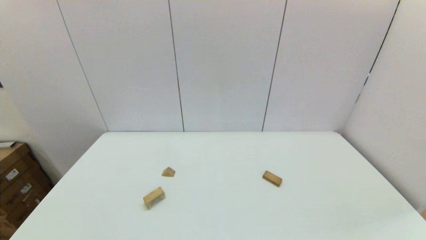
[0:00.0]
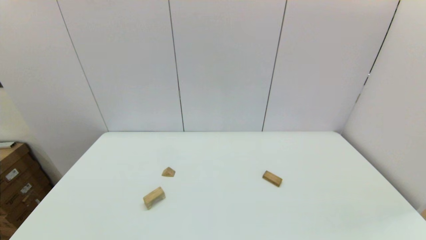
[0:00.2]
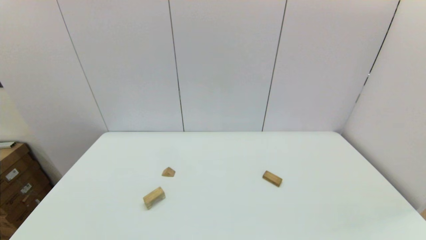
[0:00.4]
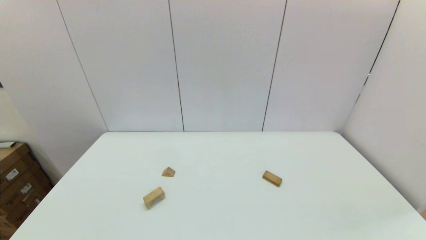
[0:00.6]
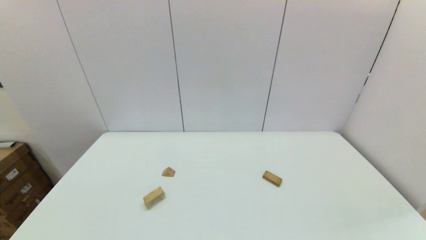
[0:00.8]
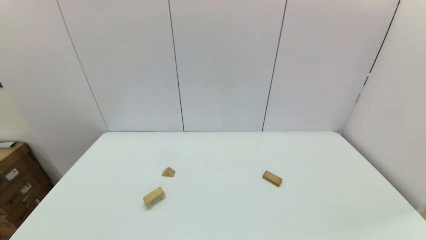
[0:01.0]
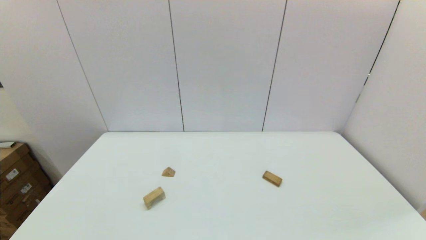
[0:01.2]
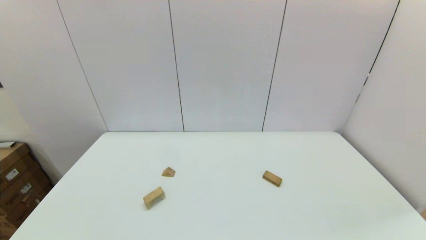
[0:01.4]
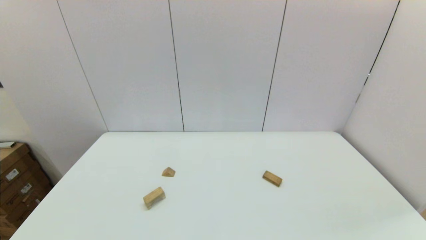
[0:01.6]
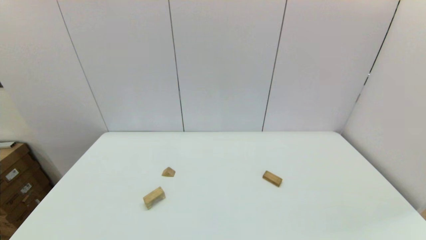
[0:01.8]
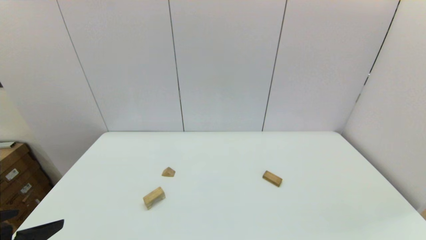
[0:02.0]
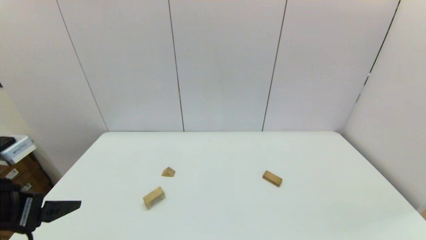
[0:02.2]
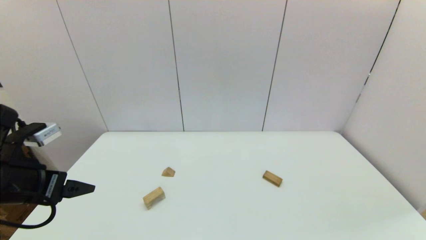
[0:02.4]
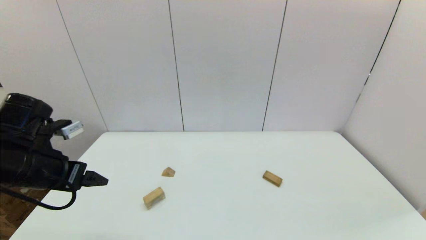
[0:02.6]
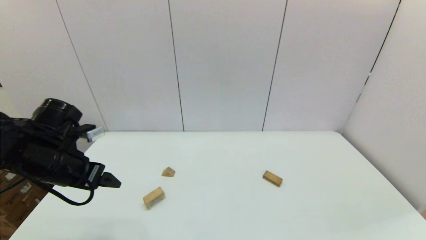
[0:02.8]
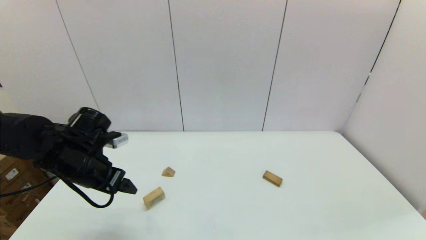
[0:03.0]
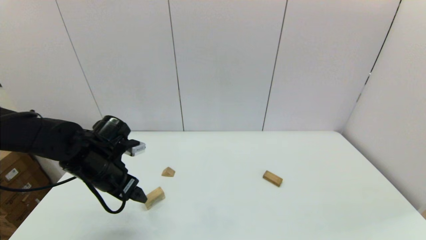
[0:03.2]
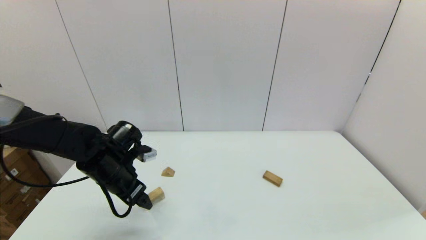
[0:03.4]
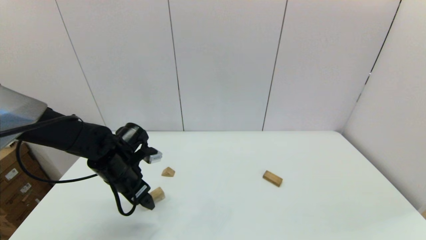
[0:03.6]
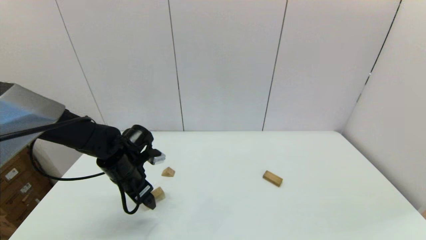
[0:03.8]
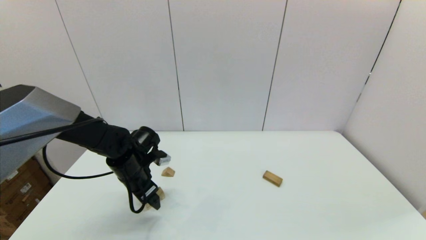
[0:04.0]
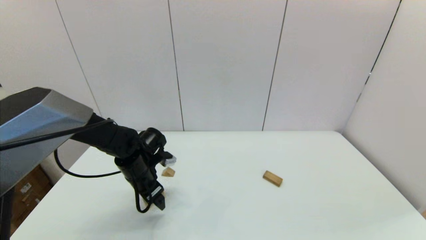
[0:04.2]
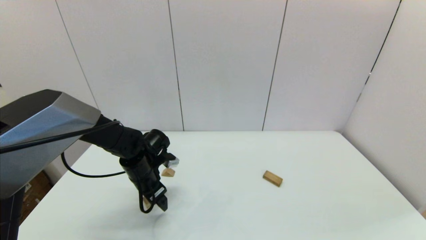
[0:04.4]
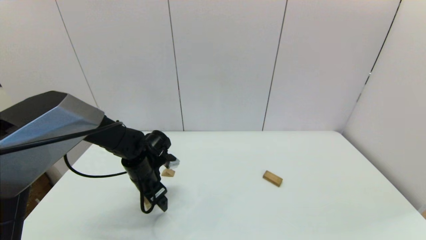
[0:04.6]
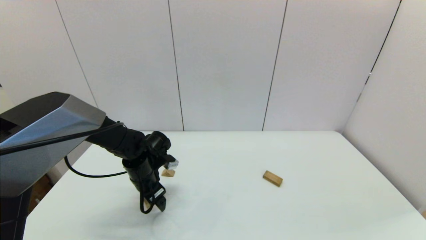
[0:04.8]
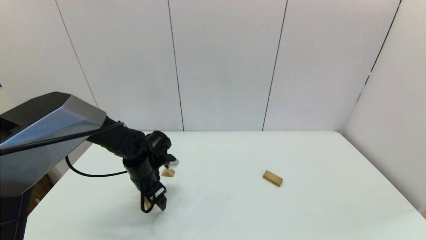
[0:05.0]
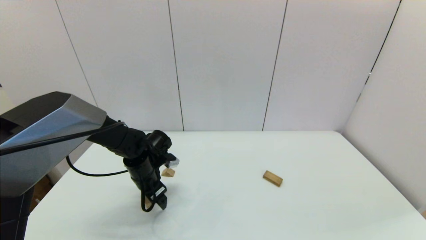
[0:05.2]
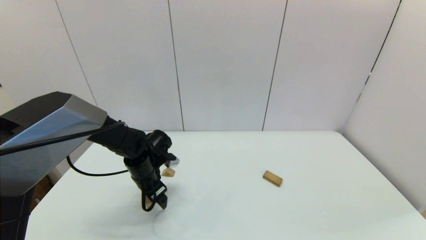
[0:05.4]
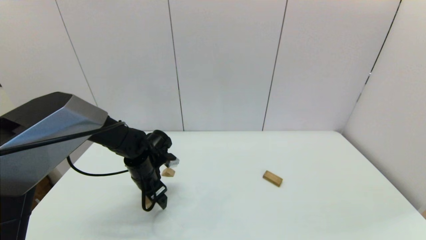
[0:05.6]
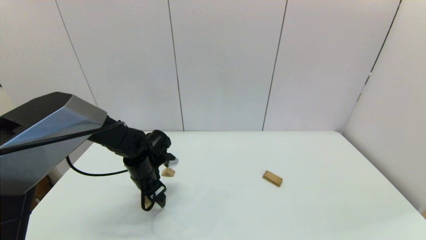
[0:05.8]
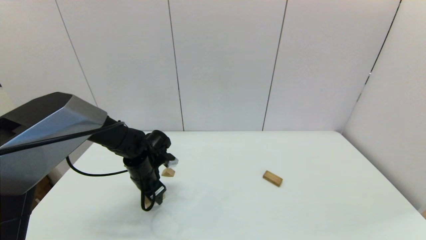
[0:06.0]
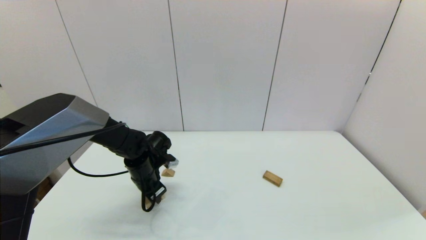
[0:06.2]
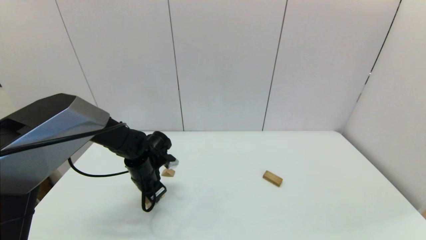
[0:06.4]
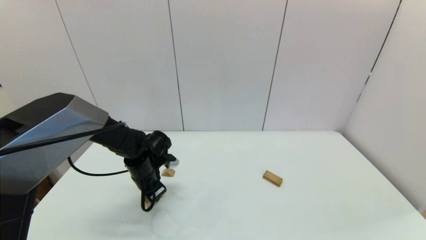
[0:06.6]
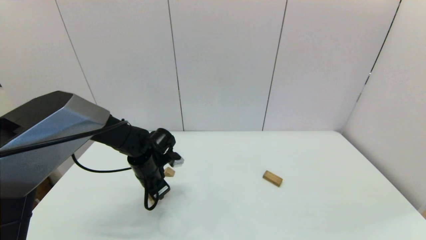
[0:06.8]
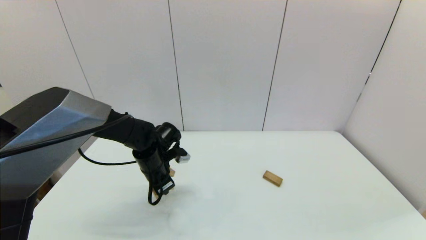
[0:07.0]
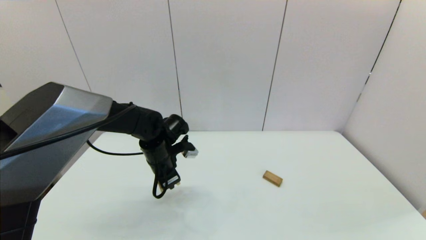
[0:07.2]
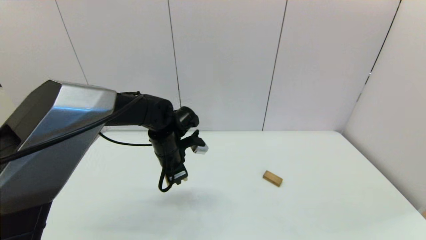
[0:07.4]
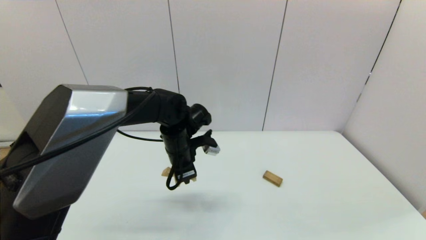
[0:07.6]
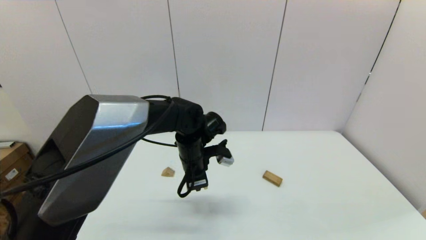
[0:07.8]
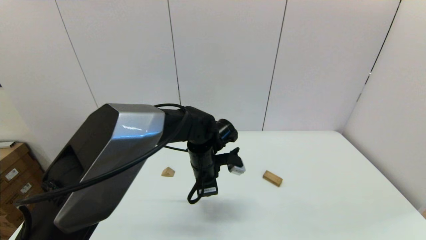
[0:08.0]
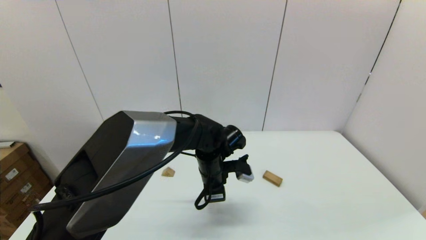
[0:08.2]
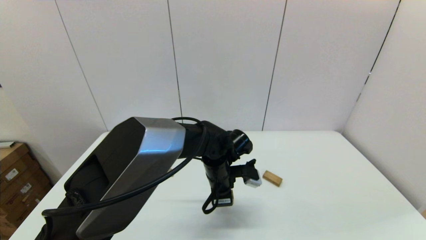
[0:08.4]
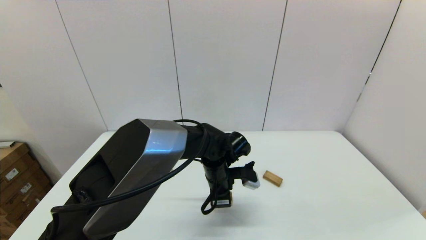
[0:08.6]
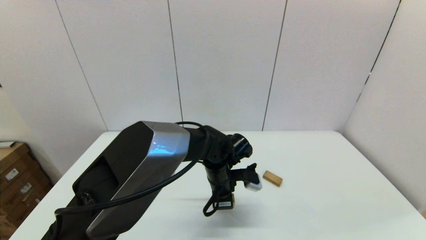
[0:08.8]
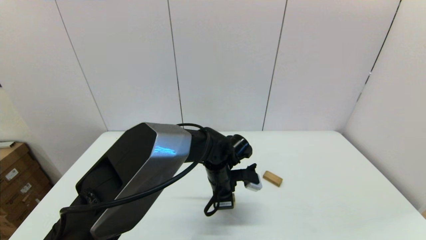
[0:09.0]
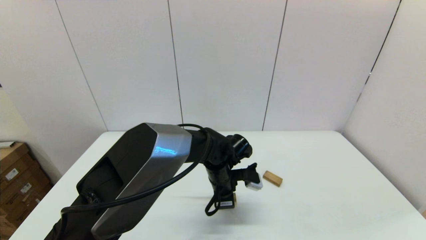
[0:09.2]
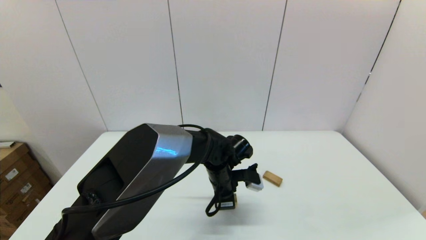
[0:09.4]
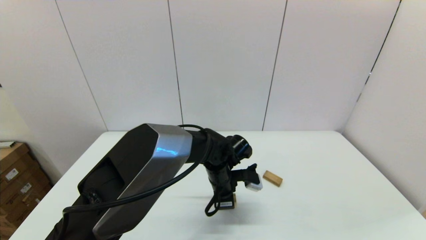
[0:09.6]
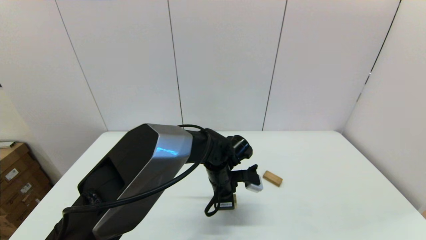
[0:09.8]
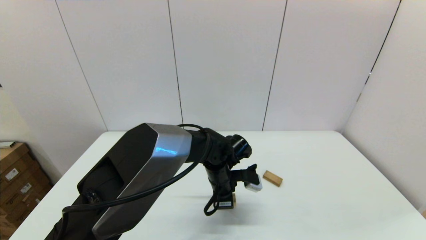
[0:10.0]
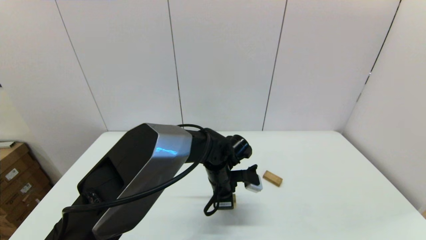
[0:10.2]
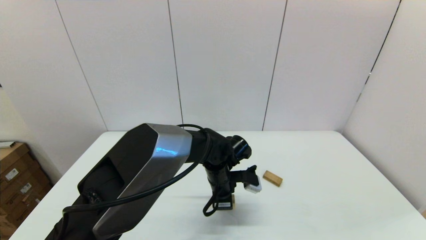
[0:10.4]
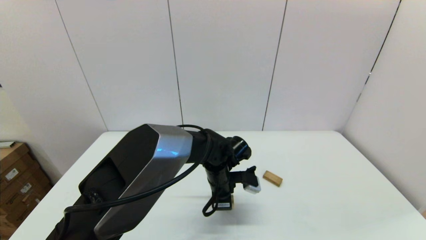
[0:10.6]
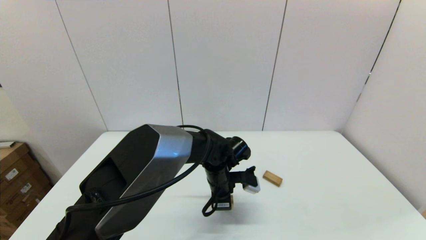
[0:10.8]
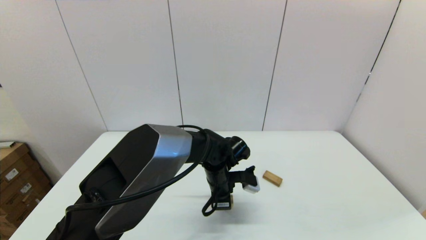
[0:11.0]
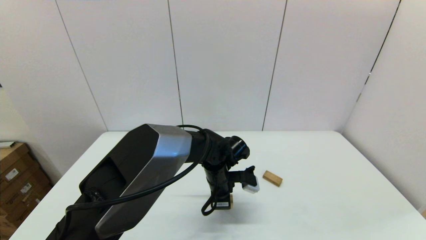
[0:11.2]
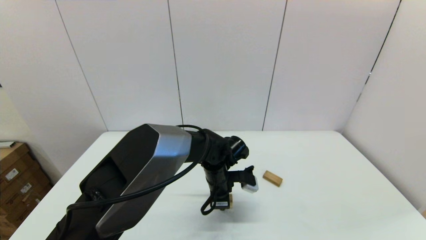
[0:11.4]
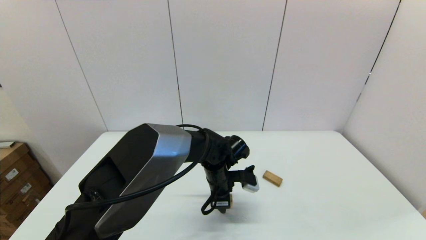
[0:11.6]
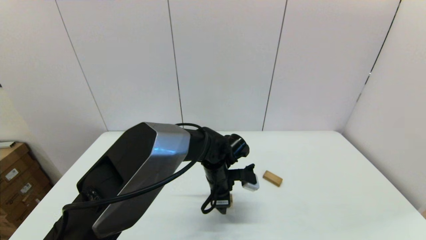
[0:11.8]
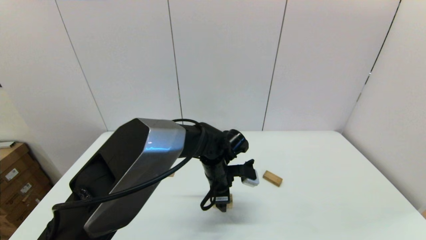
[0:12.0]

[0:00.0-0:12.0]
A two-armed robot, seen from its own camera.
Task of the whole recording: place the arched building blocks in the center of the table, set up the rectangular building blocks, and then set up the triangular building blocks.
Step, 0:02.0 to 0:06.4: Grasp the arch-shaped block with the left gripper.
Step, 0:06.8 to 0:11.8: Place the arch-shaped block in the center of view with the left gripper.
0:01.6 to 0:03.0: The left gripper is displaced forward by roughly 30 cm.
0:03.0 to 0:04.4: The left gripper is displaced downward, to the right and forward by some 15 cm.
0:04.4 to 0:06.0: The left gripper closes up.
0:06.0 to 0:07.6: The left gripper goes approximately 15 cm to the right and upward, and closes up.
0:07.6 to 0:09.0: The left gripper travels to the right and downward by about 10 cm.
0:09.0 to 0:10.4: The two grippers keep their place.
0:10.4 to 0:12.0: The left gripper opens its fingers.

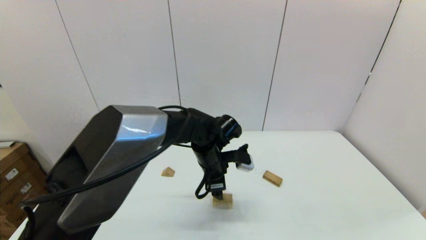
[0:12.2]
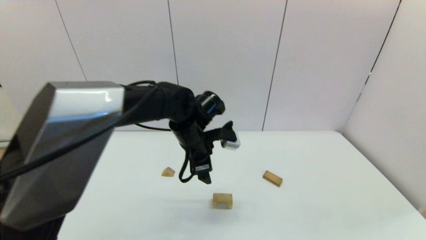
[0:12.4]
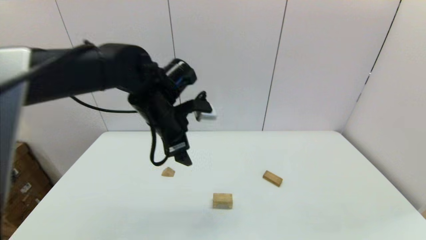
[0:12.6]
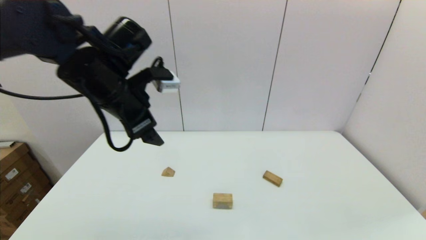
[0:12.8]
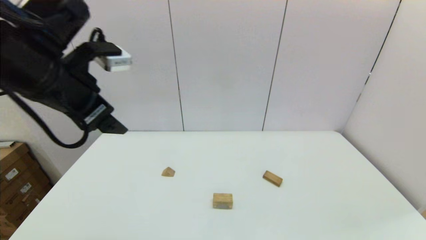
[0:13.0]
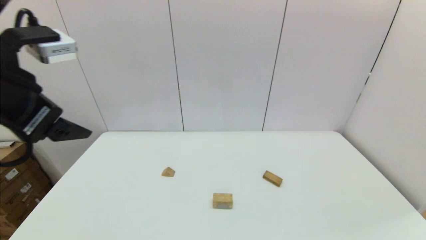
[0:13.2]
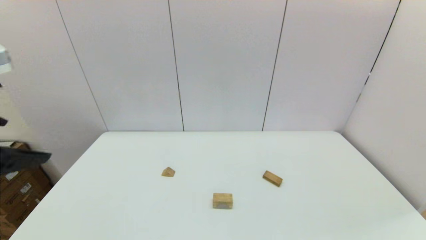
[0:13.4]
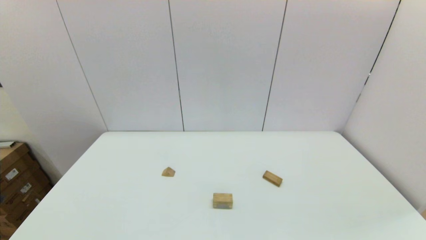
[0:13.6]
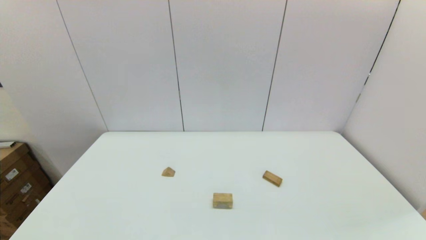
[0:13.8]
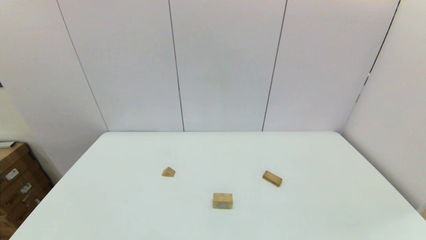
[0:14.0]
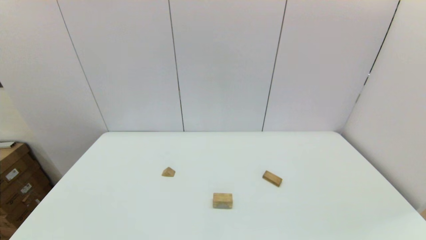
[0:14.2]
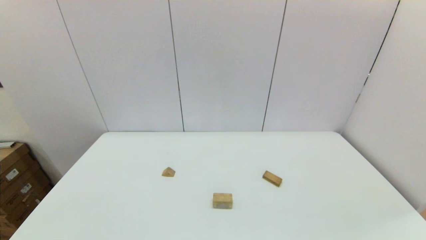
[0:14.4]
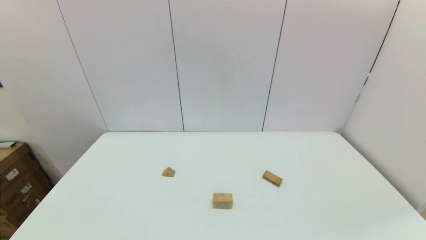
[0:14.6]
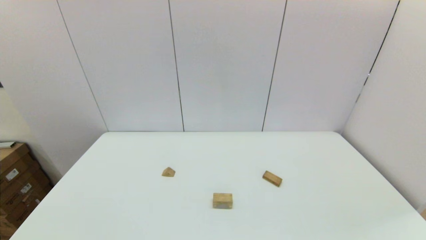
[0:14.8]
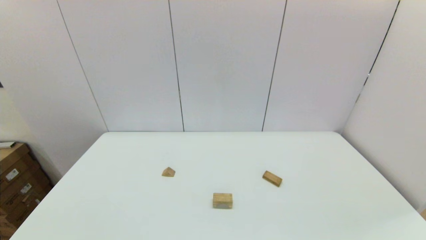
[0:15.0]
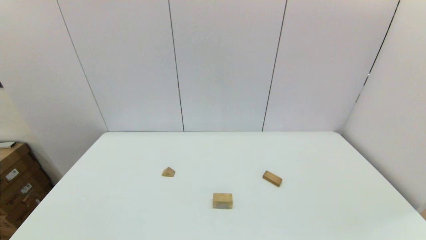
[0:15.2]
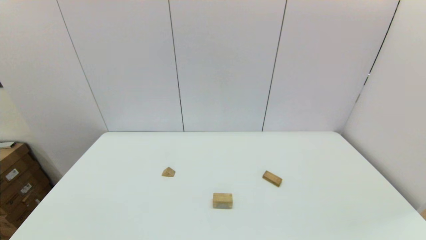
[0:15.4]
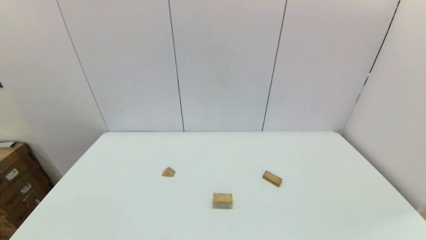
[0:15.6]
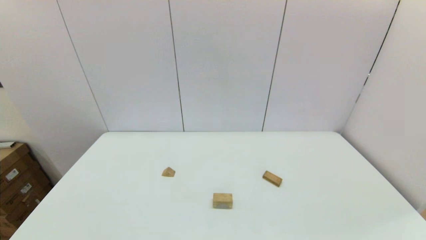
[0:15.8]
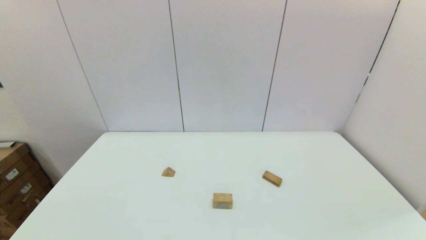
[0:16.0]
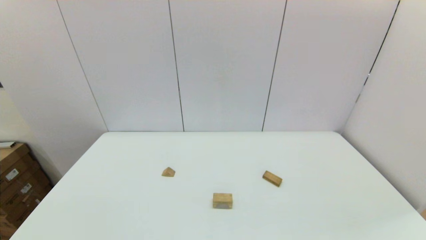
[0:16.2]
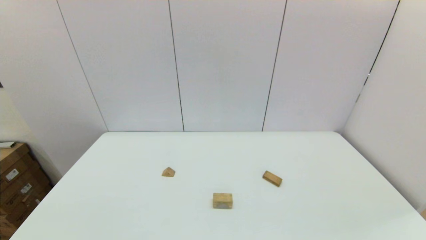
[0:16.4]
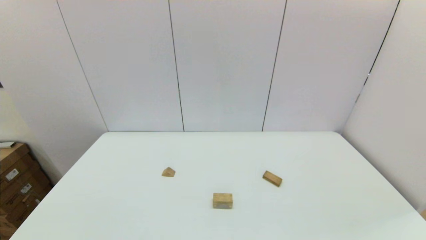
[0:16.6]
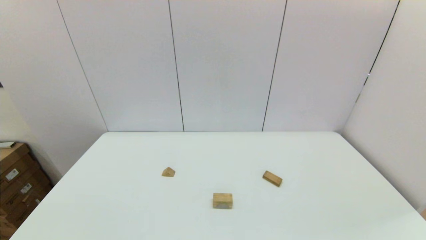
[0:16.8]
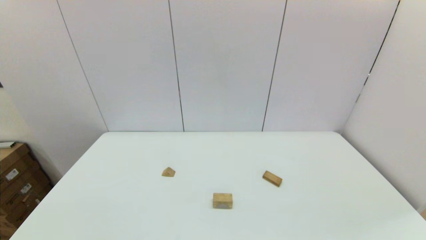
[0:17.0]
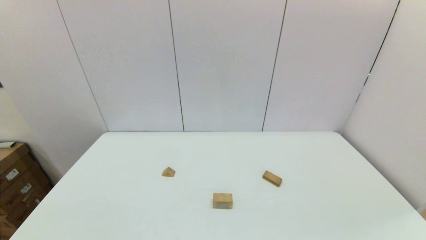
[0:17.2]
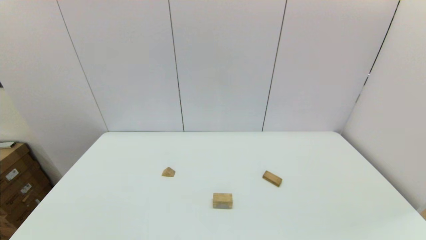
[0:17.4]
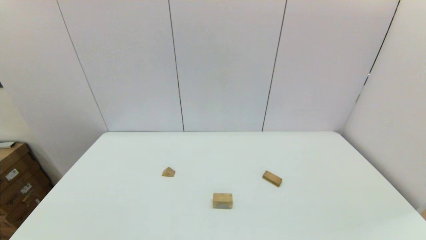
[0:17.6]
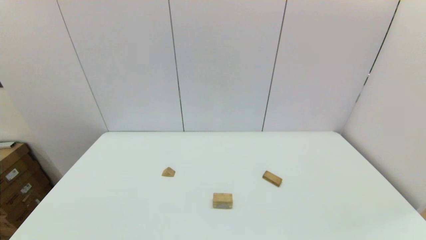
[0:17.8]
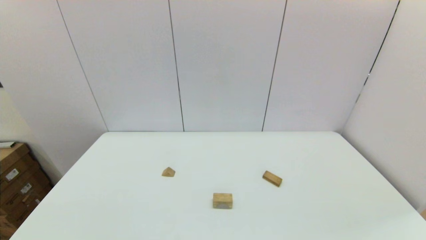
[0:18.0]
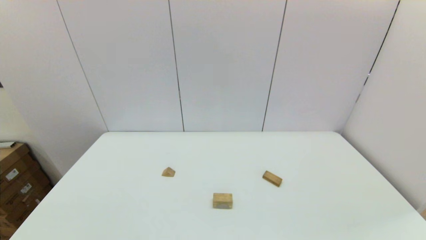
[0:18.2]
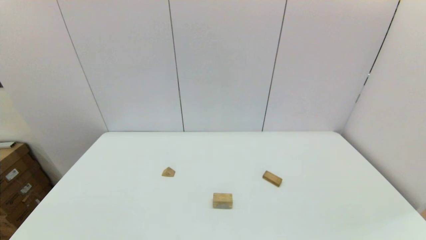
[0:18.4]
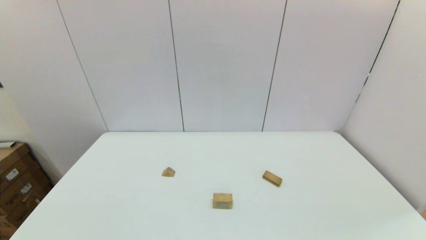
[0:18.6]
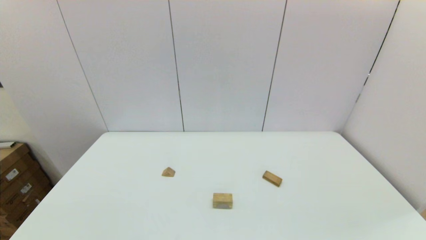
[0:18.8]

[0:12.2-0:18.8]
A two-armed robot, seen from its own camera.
Task of the whole recording: place the arched building blocks in the center of the table, set up the rectangular building blocks, and then set up the triangular building blocks.
0:12.2 to 0:13.8: The left gripper moves backward, to the left and upward, roughly 50 cm.
0:17.2 to 0:18.8: The two grippers keep their place.
